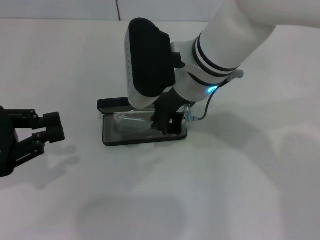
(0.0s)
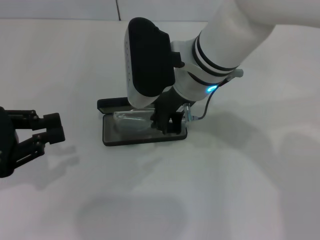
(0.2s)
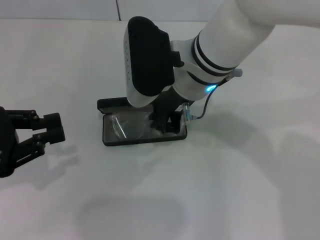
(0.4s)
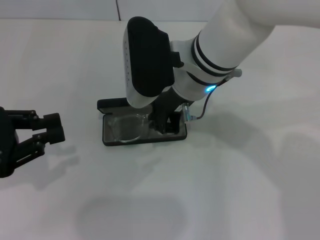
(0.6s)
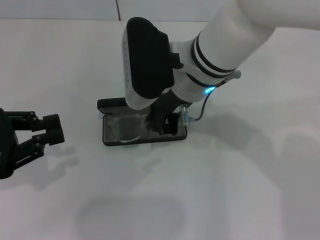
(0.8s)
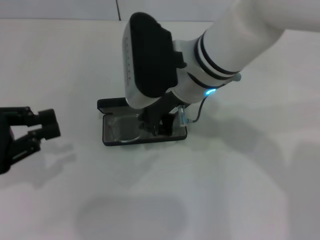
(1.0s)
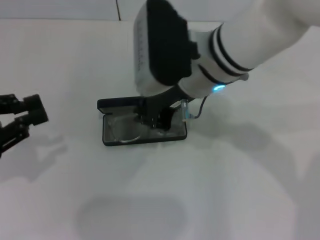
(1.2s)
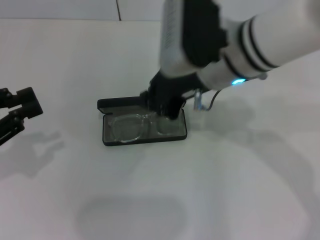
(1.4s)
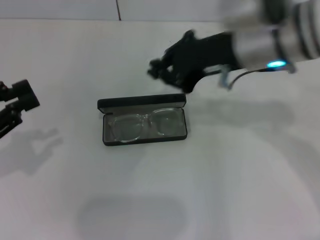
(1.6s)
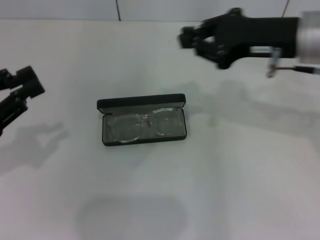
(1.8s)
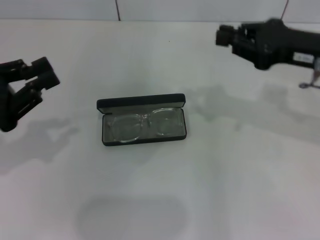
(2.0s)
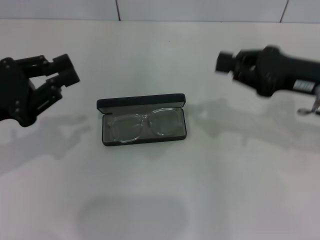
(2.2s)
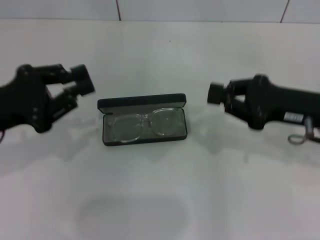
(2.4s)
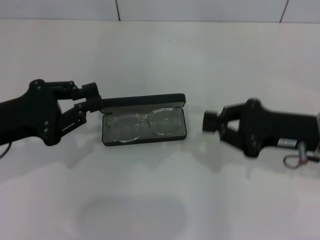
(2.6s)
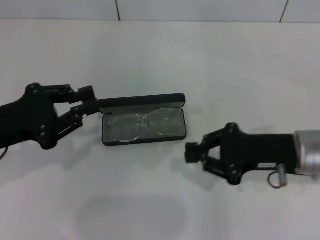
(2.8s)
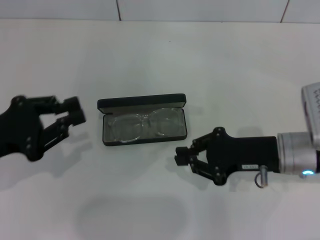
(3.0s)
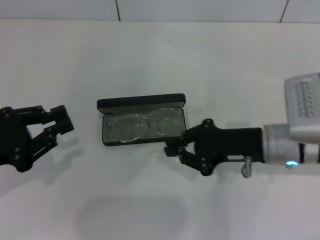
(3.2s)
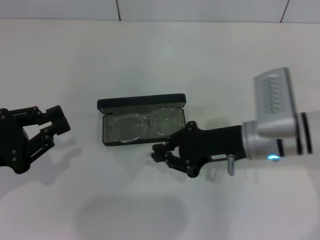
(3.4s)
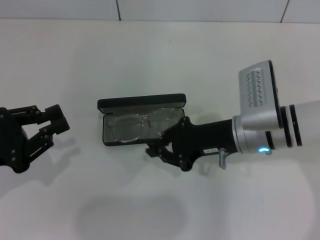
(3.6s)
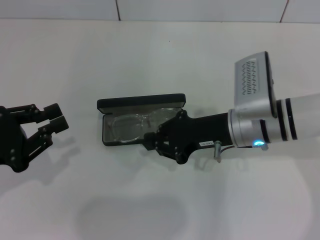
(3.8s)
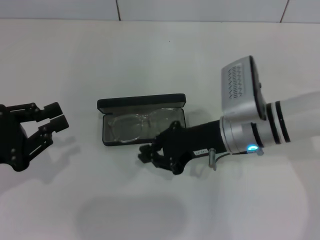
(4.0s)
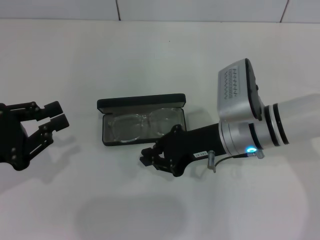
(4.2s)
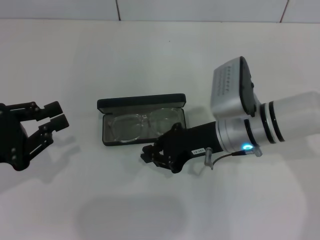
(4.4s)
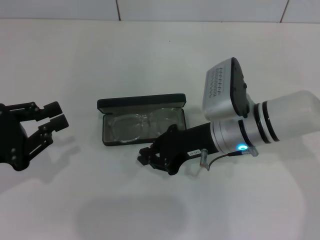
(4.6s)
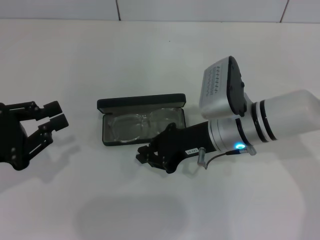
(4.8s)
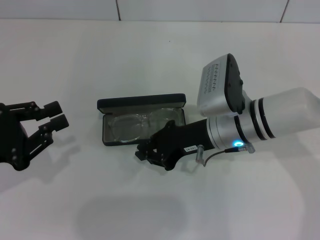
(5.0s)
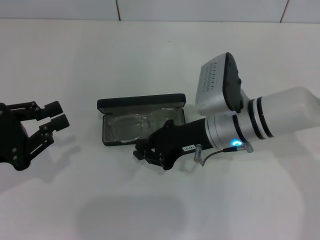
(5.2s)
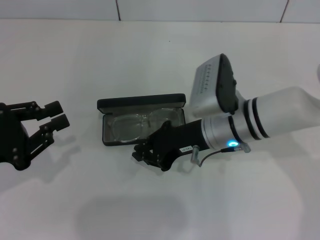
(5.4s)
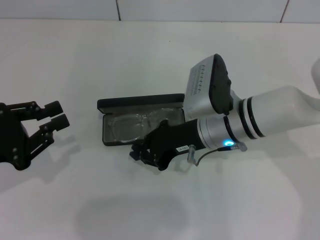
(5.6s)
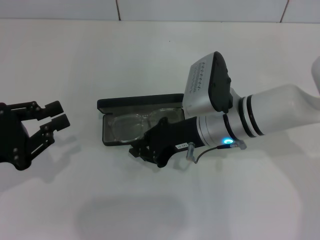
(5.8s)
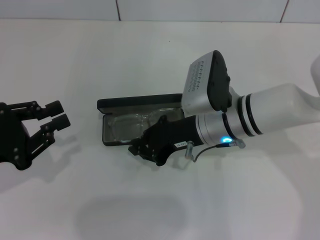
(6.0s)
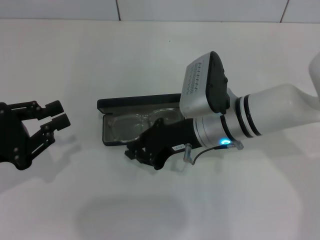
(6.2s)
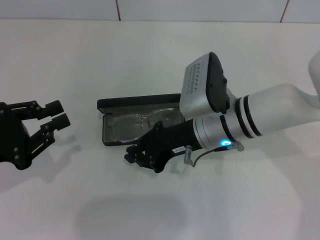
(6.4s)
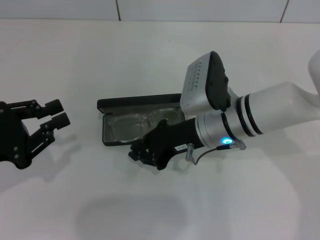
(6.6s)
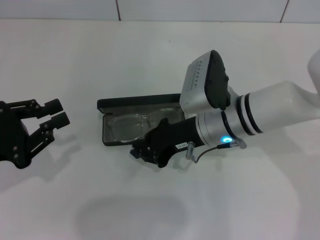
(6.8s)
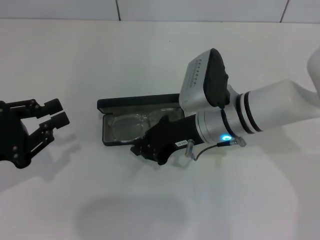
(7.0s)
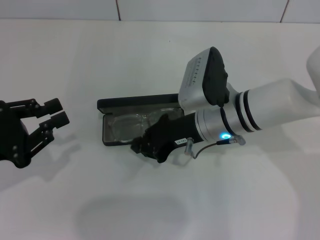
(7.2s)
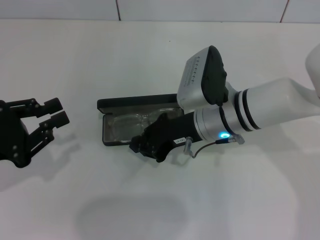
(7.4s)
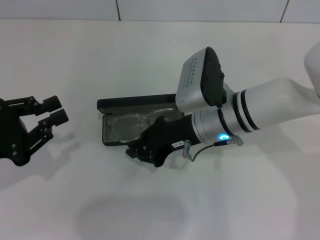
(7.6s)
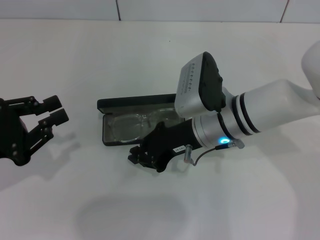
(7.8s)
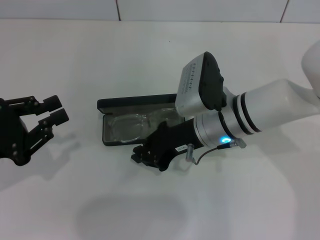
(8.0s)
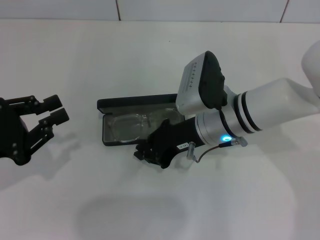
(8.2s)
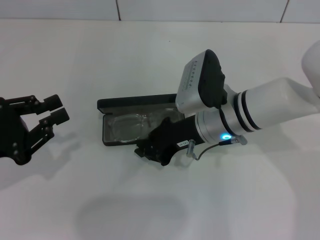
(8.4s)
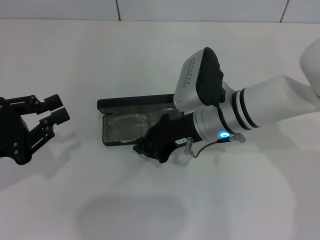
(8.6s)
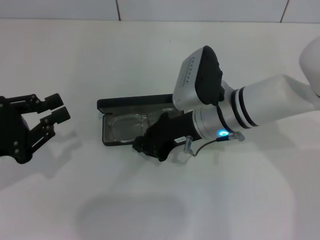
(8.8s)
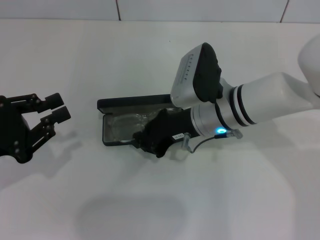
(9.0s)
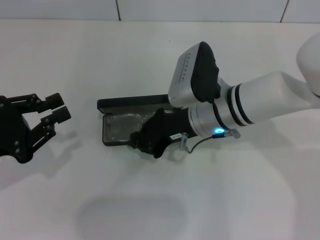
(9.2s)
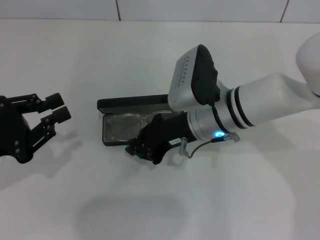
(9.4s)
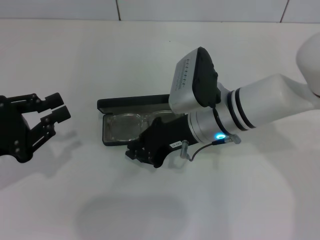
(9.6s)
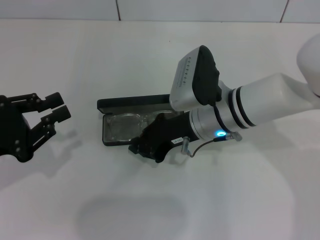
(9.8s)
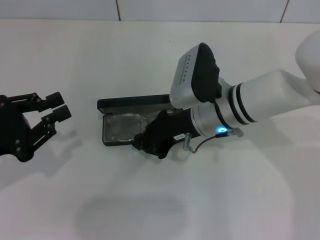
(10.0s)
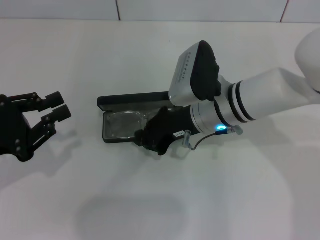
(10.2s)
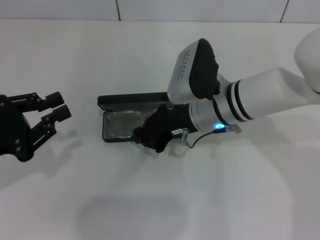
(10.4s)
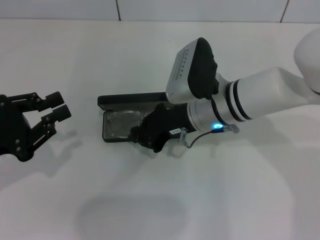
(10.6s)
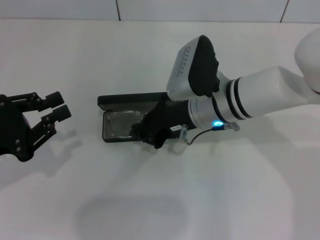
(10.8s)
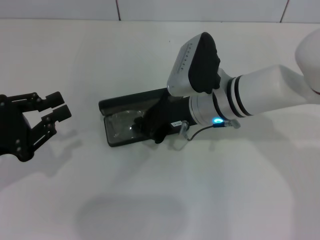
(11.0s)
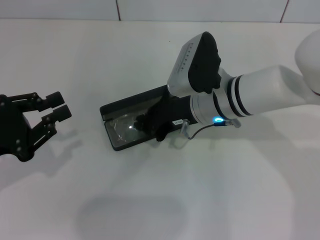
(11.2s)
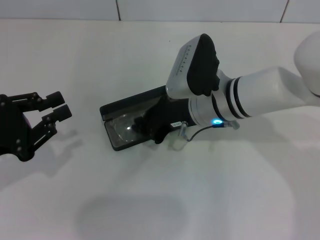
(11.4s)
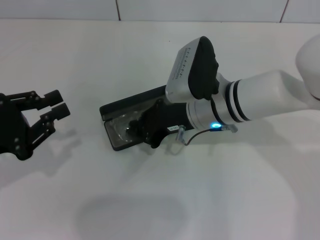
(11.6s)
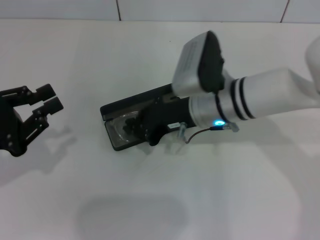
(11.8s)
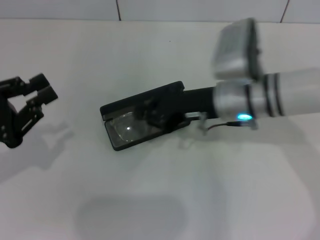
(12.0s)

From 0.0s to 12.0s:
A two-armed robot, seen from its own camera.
Step, from 0.0s to 11.6s: Put the glasses into the case with your right hand.
From 0.0s to 1.6s: The right gripper moves to the right, roughly 10 cm.
From 1.6s to 3.0s: The left gripper shifts by about 5 cm. Meanwhile the right gripper is displaced downward and to the right by approximately 15 cm.
From 3.0s to 4.4s: The right gripper is displaced to the left by about 10 cm.
From 4.4s to 6.0s: The grippers move only a little.
From 6.0s to 7.6s: The two grippers keep their place.
From 7.6s to 9.0s: There are only small adjustments of the grippers.
From 9.0s to 10.4s: Neither gripper changes place.
From 10.4s to 12.0s: The grippers move only a little.

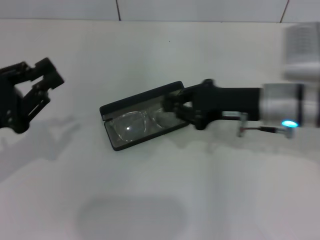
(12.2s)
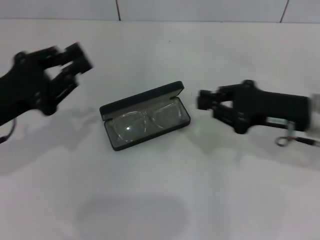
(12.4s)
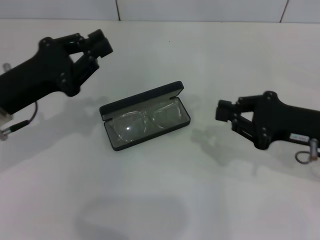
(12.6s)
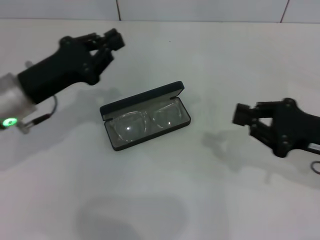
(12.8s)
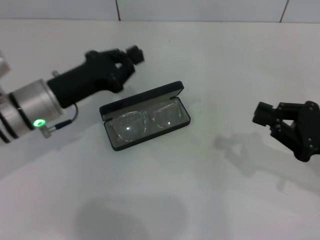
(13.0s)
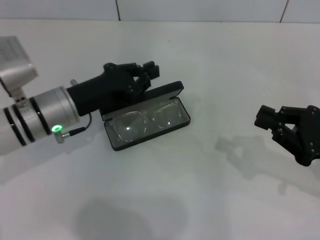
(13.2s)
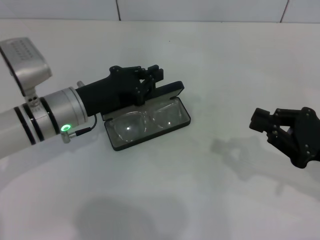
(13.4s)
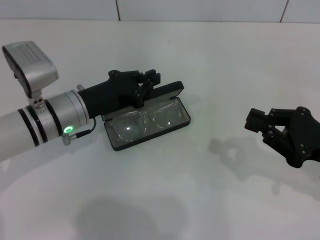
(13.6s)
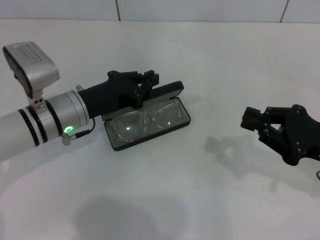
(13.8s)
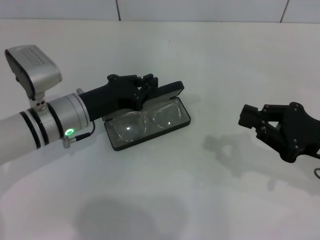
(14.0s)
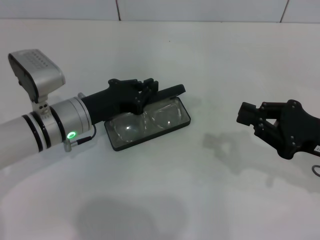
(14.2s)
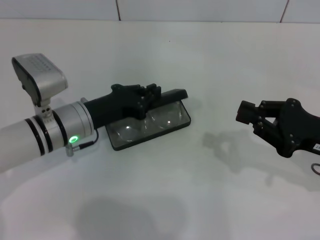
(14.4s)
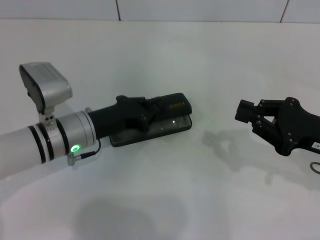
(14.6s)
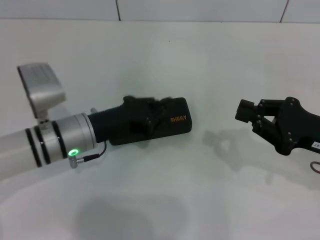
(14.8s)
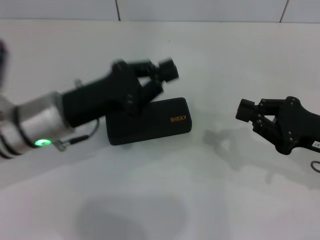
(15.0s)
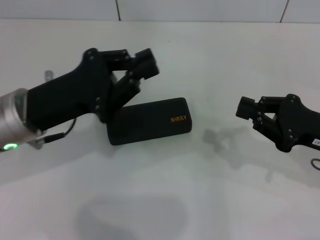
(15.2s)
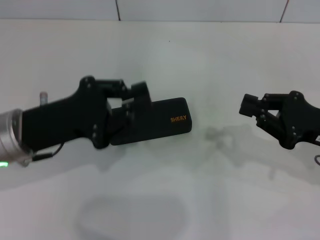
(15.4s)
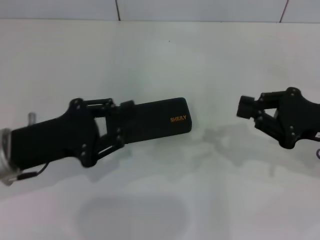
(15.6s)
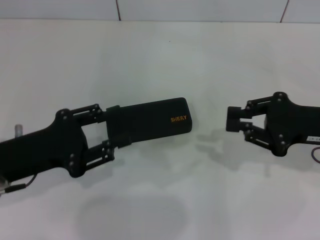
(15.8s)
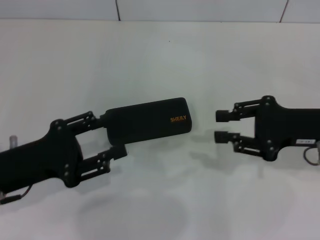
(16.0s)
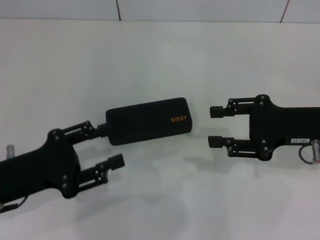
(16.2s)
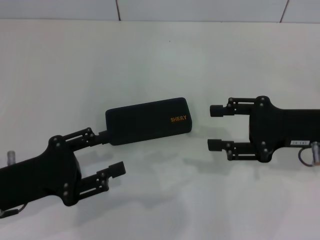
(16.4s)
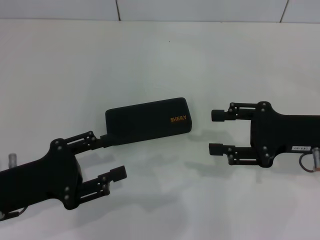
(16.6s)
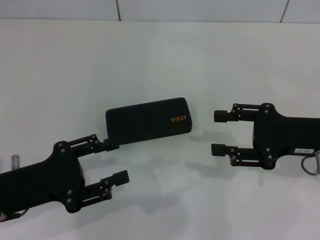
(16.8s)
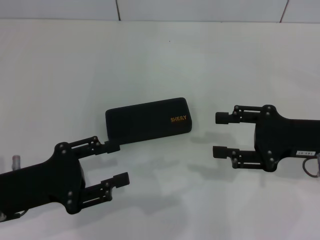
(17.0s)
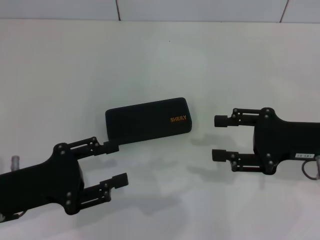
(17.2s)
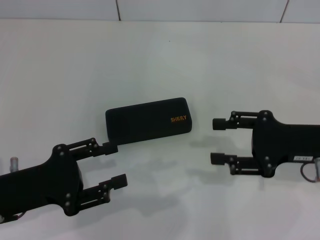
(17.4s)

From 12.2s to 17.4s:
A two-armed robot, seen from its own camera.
Step, from 12.2s to 14.6s: Close the glasses case with your left hand.
From 12.2s to 14.0s: The right gripper moves to the right and backward, about 15 cm. Meanwhile the left gripper travels to the right, forward and downward by some 15 cm.
From 14.0s to 15.6s: The left gripper heads backward and to the left, covering about 10 cm.
From 15.6s to 17.4s: The right gripper opens its fingers. Meanwhile the left gripper ends up approximately 5 cm from where it was, and opens its fingers.

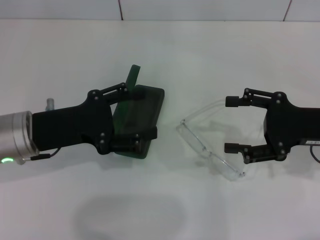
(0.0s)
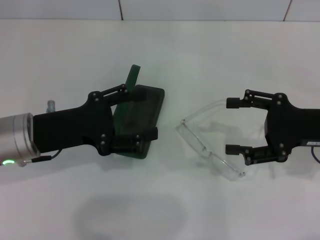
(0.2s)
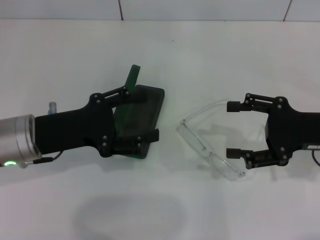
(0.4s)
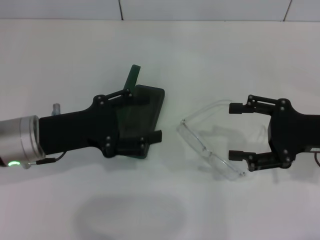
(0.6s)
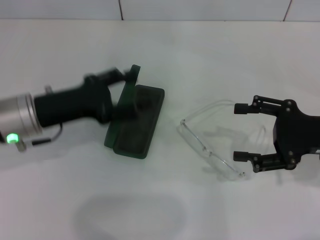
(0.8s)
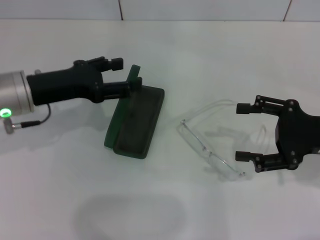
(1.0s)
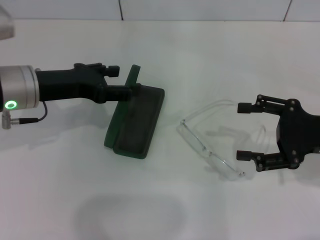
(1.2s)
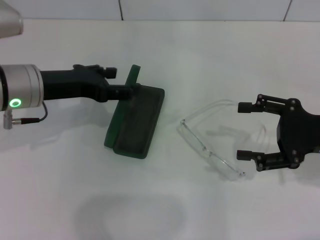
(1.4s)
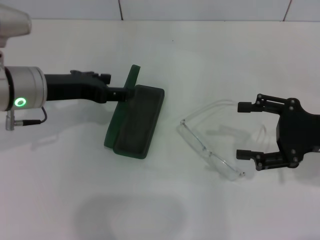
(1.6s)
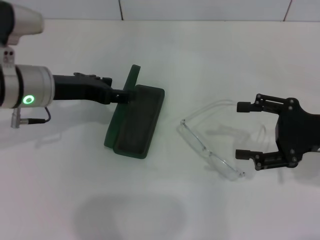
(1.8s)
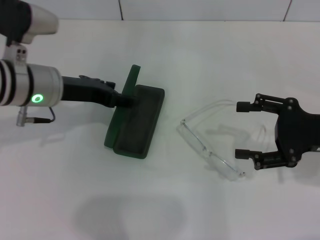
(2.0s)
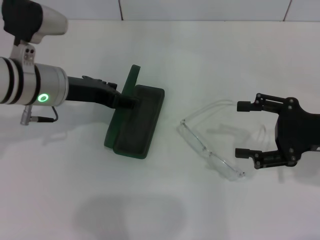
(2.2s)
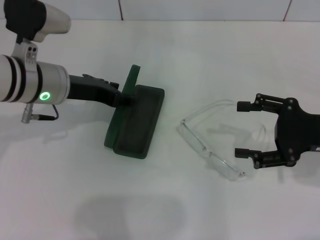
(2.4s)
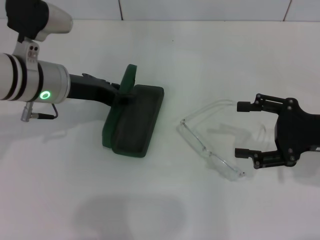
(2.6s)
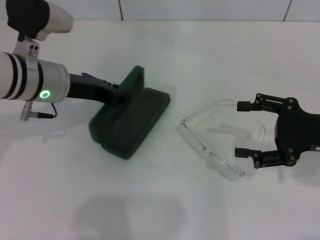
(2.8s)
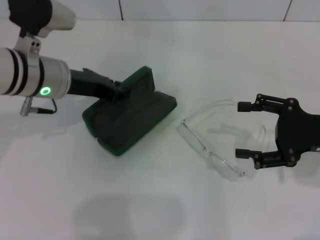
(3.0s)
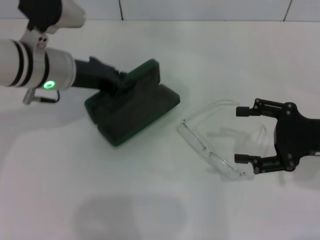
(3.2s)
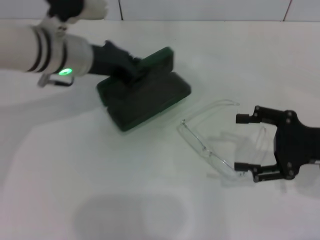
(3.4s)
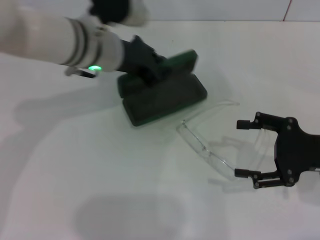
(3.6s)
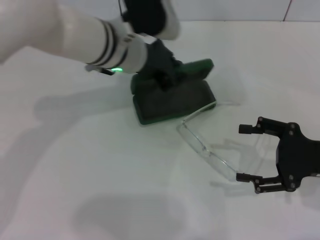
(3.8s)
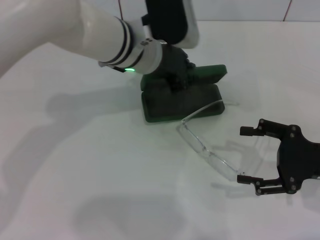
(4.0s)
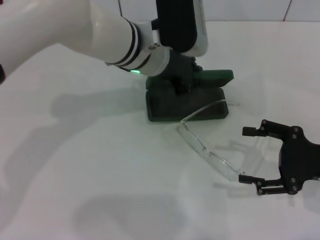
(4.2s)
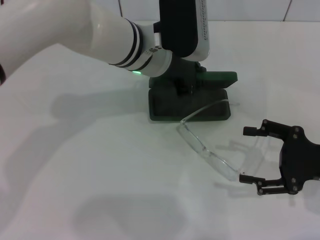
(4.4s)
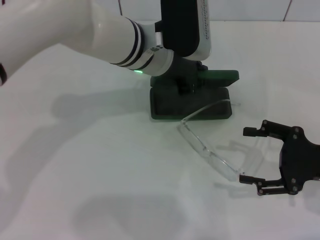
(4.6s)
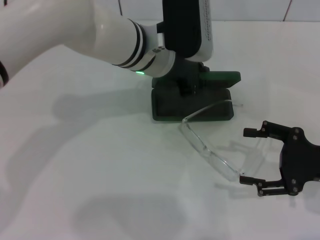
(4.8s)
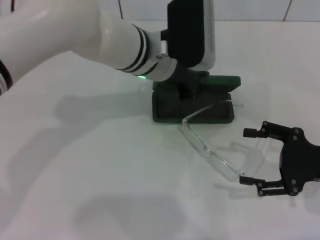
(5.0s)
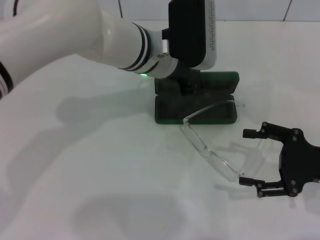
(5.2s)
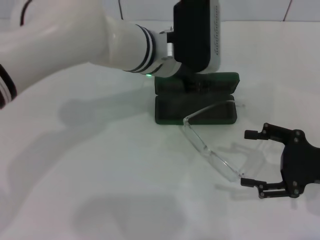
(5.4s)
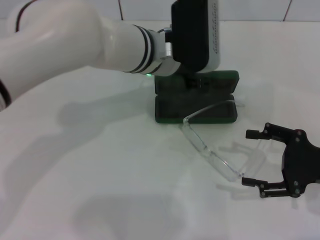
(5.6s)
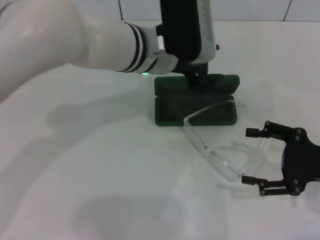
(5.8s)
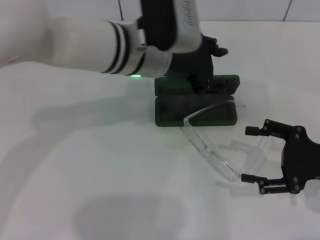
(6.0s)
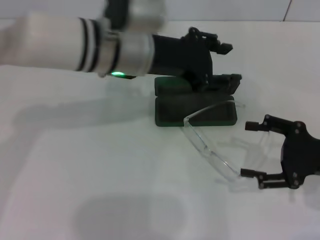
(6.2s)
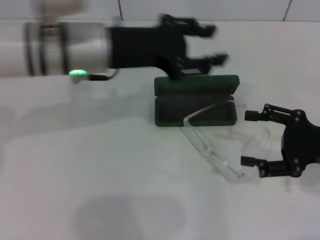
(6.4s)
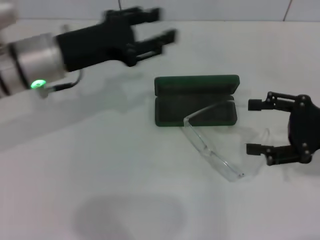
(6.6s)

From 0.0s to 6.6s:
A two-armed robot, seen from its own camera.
Step, from 0.0s to 2.8s: Grab the glasses case with your left hand.
Step, from 3.2s to 5.4s: Place the glasses case in the center of the table with your left hand.
From 0.0s to 1.6s: The left gripper goes approximately 5 cm forward.
From 1.6s to 3.2s: The left gripper changes place by about 5 cm, and closes.
From 3.2s to 5.0s: The left gripper is displaced to the right by about 15 cm.
From 5.0s to 6.6s: The right gripper travels upward by approximately 5 cm. The left gripper travels to the left by about 15 cm, and opens up.
